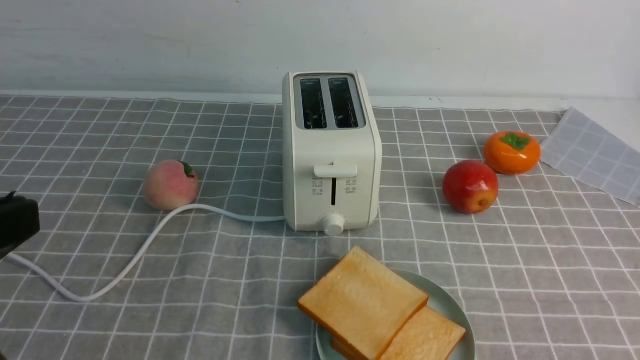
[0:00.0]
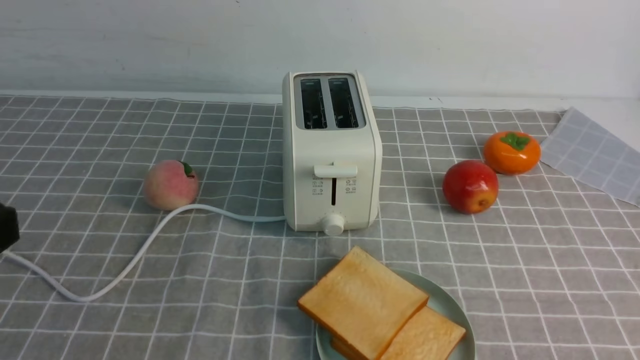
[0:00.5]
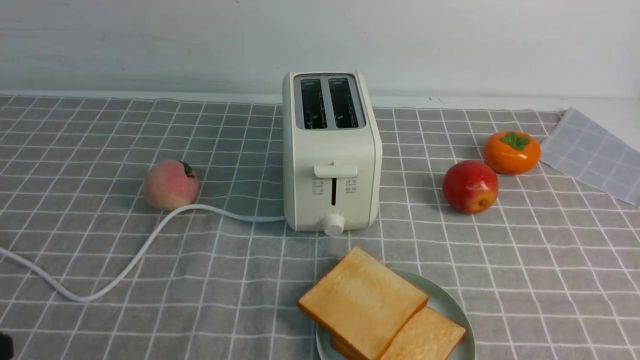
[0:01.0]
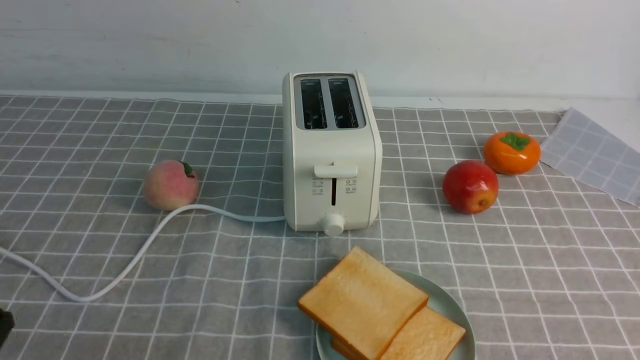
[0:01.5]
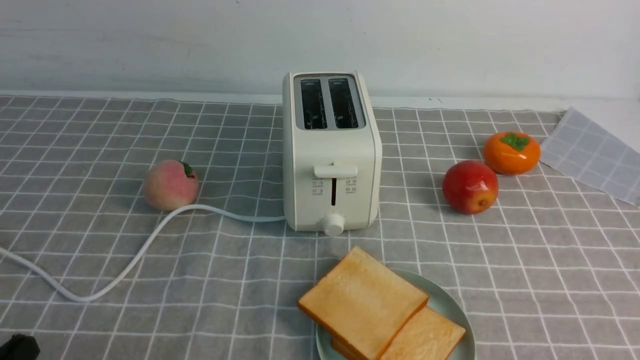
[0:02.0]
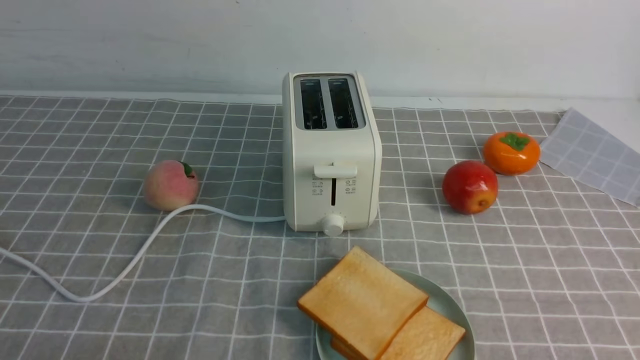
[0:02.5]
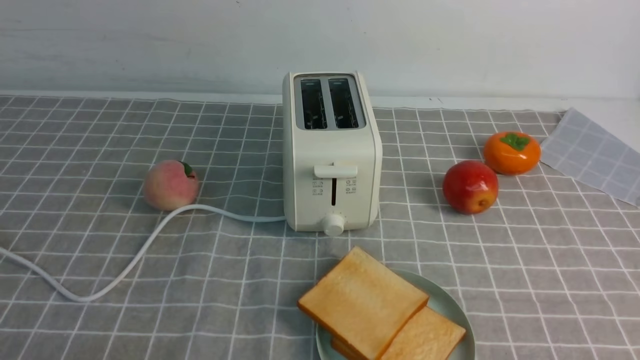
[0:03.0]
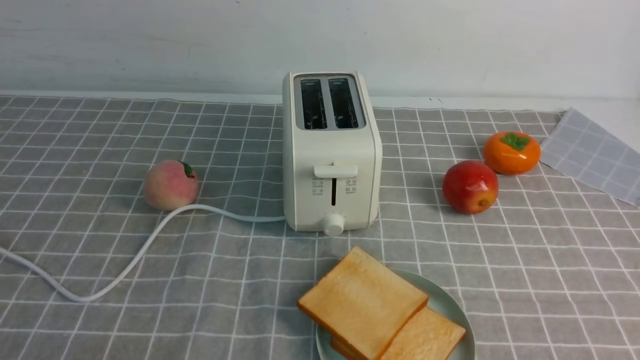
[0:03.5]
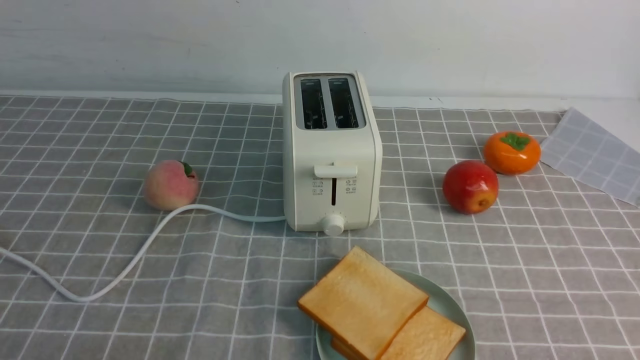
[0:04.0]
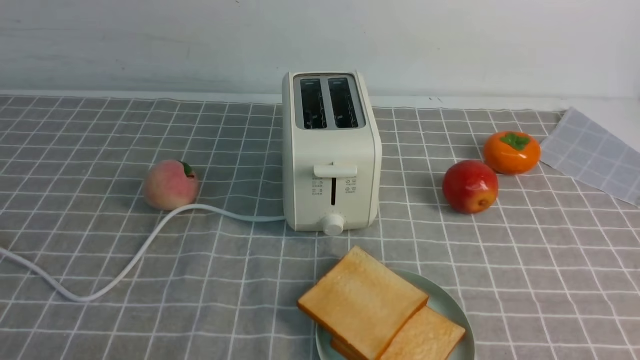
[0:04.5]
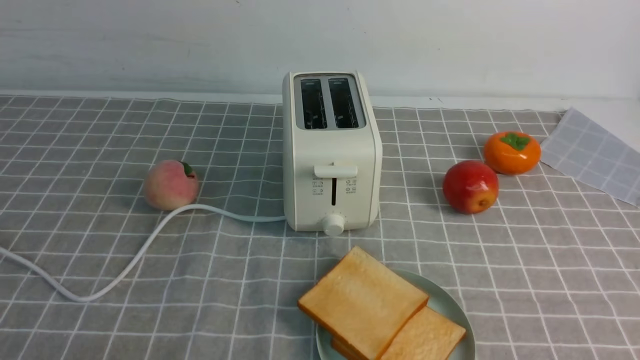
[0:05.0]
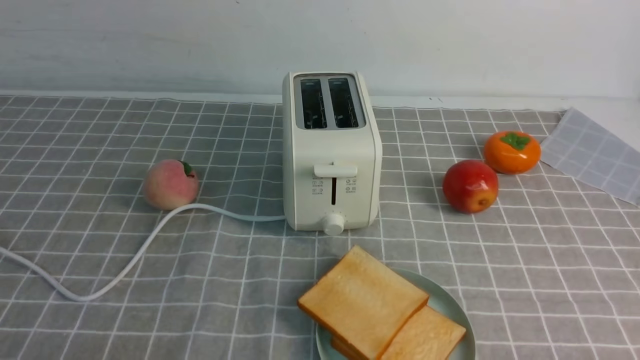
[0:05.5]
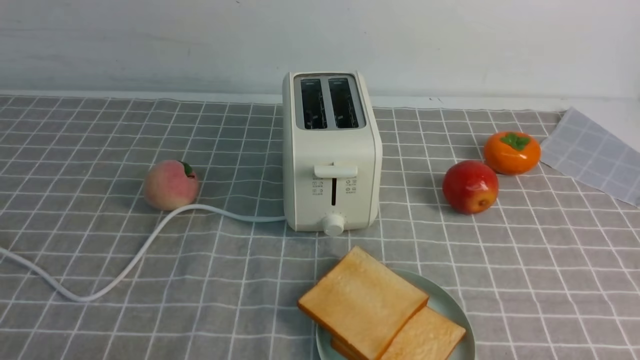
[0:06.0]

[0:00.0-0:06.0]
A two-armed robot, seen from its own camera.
Task of the whole recording: take toasted bread from bread machine on grey coffee table place on plate.
0:00.0 to 0:02.0: The left gripper shifts about 15 cm downward.
